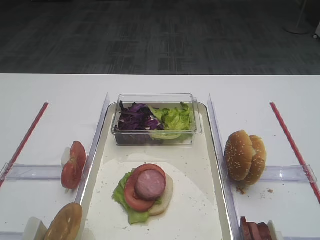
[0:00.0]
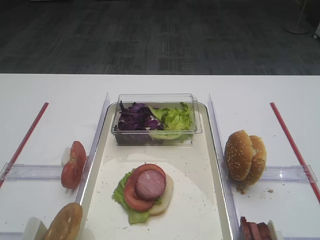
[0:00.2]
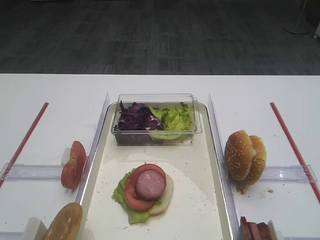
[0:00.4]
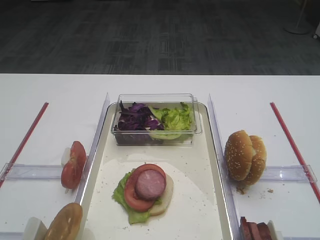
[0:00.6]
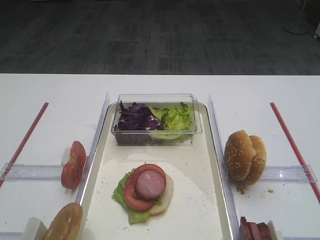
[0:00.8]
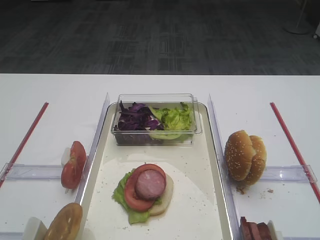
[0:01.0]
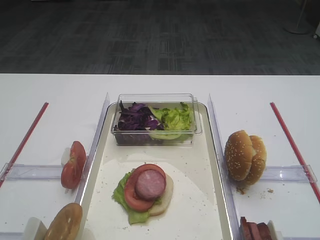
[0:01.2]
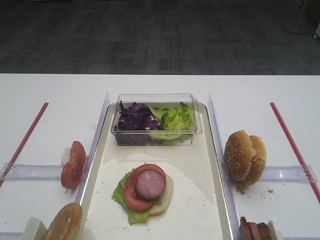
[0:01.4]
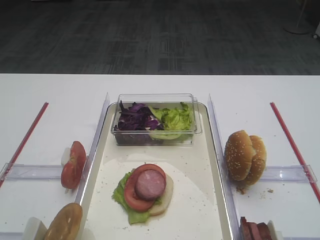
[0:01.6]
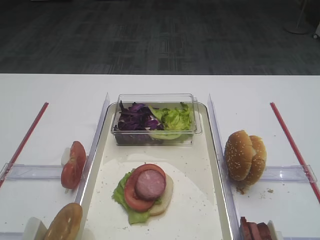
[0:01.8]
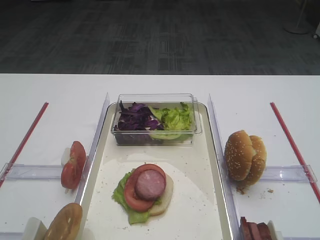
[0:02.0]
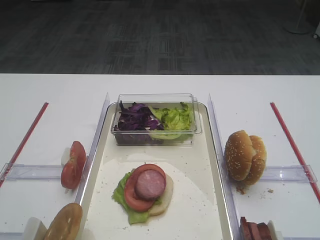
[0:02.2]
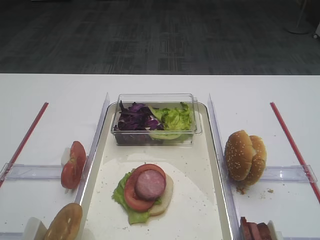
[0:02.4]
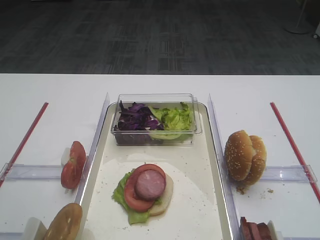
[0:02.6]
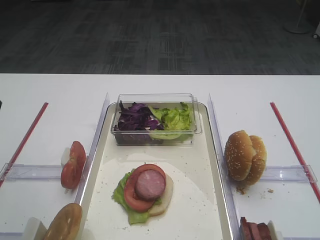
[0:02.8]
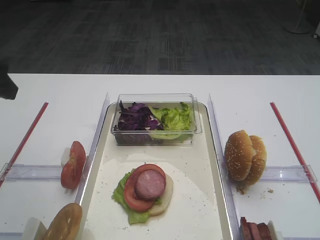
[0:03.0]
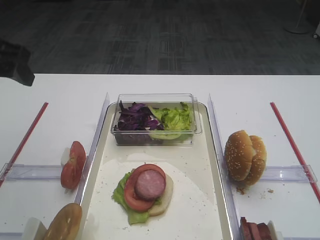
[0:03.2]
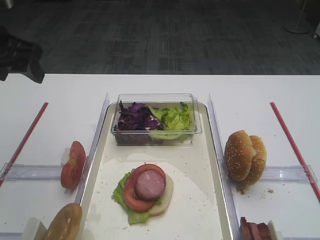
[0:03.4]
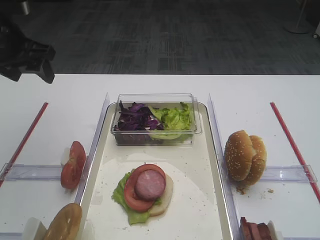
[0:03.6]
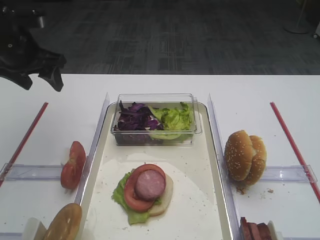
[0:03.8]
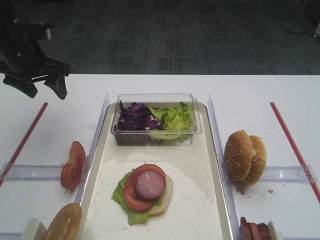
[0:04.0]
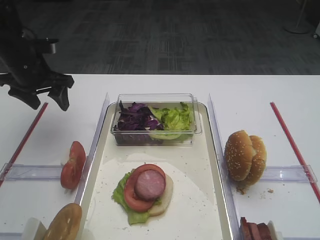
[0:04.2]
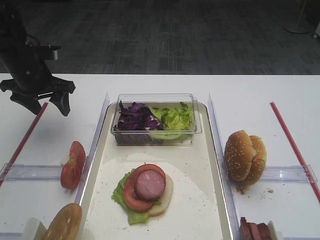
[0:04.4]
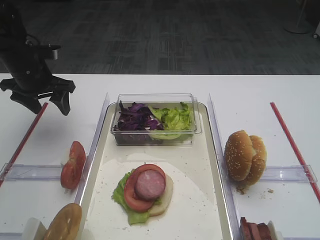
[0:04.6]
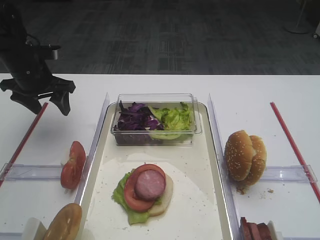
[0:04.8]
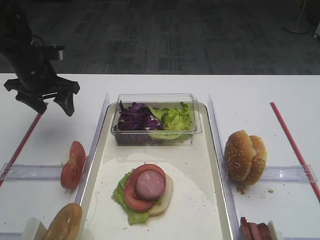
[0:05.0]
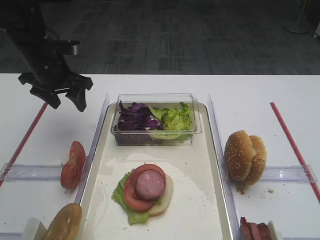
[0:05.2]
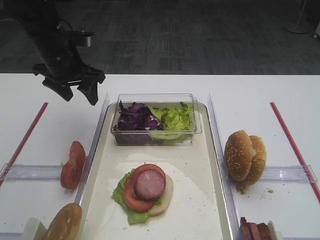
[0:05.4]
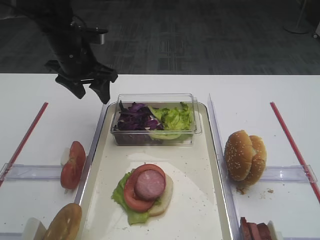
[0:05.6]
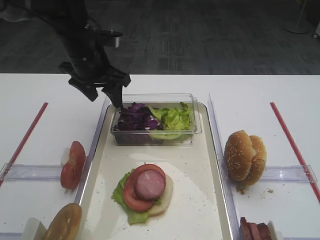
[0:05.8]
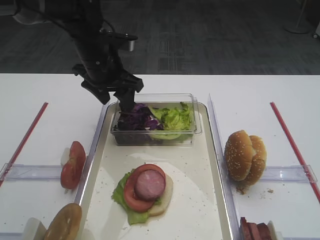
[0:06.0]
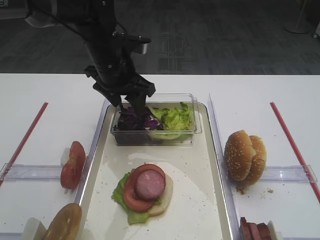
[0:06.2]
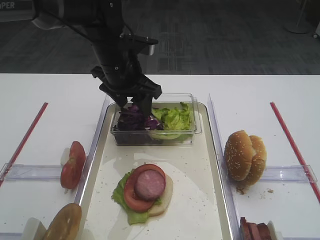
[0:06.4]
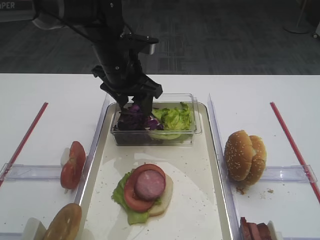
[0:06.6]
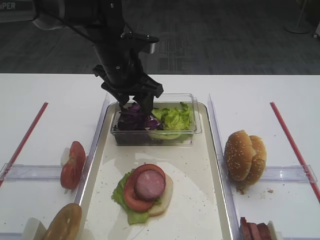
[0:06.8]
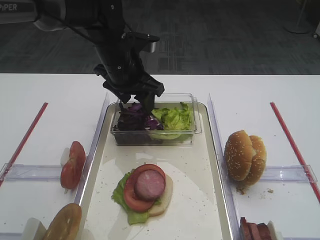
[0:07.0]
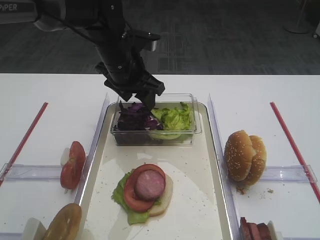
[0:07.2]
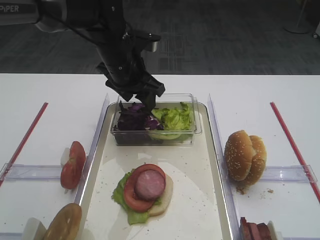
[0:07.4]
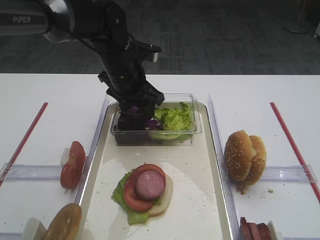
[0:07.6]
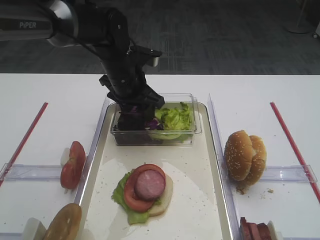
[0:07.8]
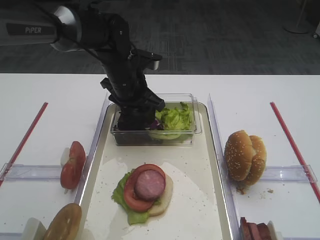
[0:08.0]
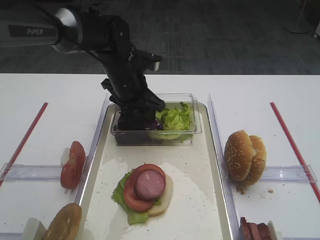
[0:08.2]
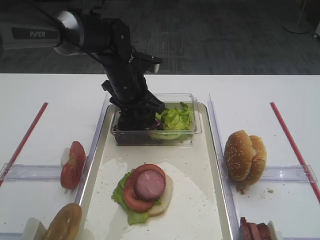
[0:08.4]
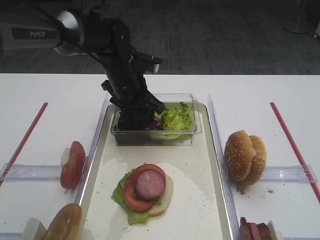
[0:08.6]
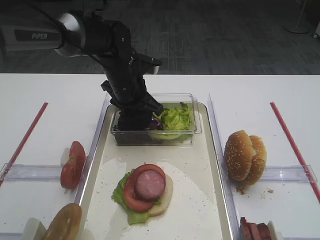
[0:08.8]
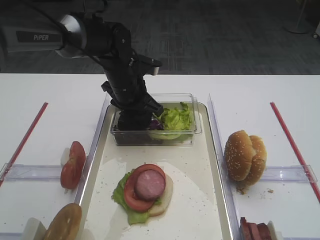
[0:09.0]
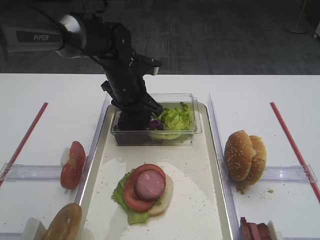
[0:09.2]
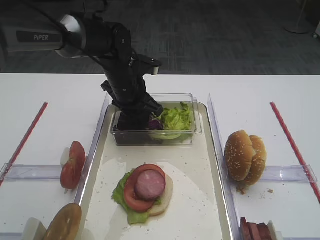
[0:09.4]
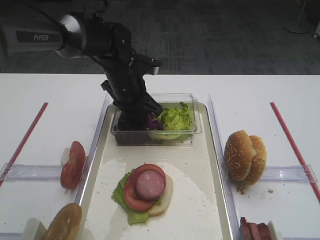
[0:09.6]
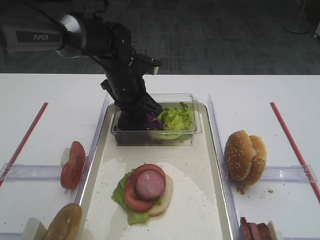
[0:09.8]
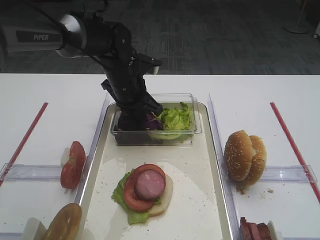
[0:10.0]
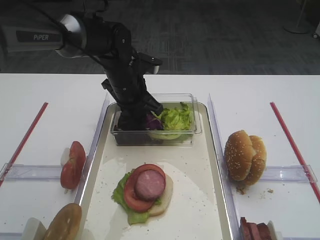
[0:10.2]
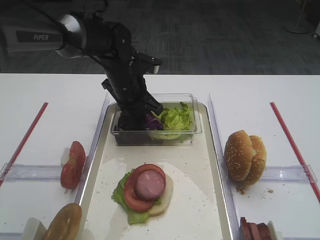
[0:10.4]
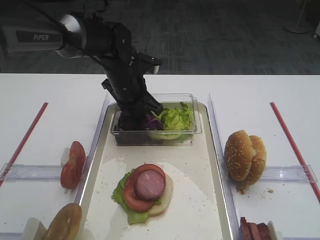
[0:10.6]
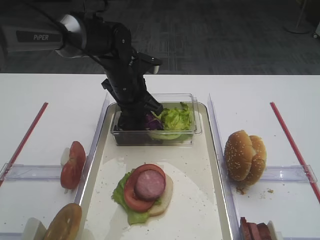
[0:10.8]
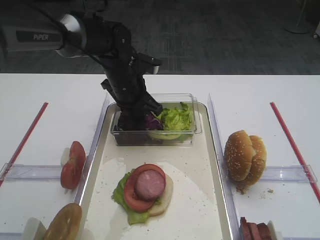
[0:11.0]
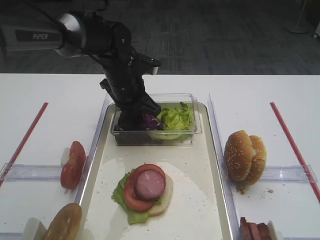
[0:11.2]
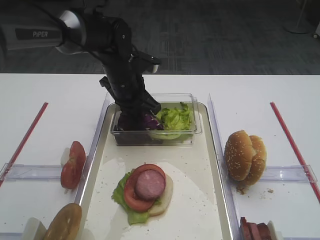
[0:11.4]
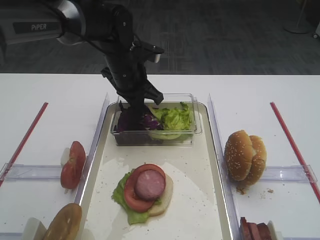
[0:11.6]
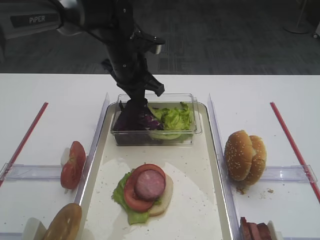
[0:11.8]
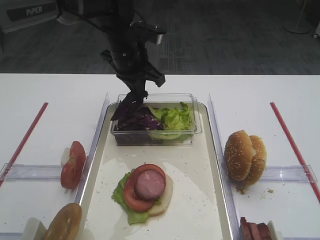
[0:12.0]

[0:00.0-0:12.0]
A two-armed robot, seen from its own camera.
0:01.6 to 0:03.0: The left gripper moves forward, approximately 25 cm.
0:03.0 to 0:04.4: The left gripper goes approximately 25 cm forward and downward.
0:04.4 to 0:06.0: The left gripper goes about 15 cm to the right.
0:06.0 to 0:07.6: The grippers stay close to where they were, moving slightly.
0:07.6 to 0:09.0: The grippers move only a little.
0:10.4 to 0:12.0: The left gripper travels upward by about 5 cm.

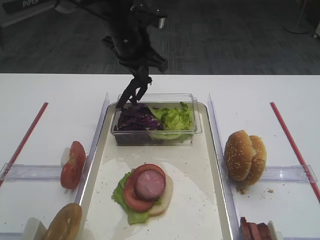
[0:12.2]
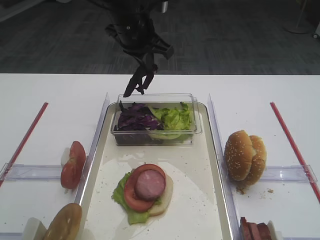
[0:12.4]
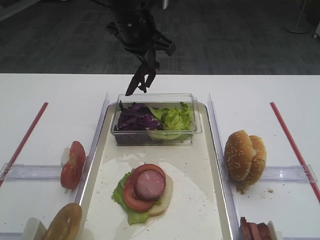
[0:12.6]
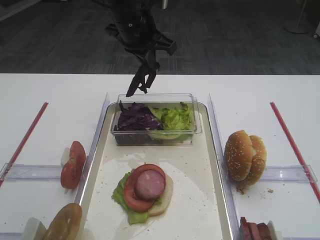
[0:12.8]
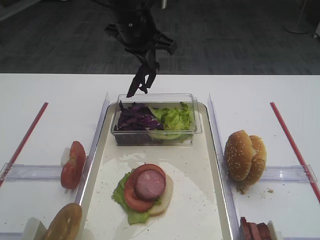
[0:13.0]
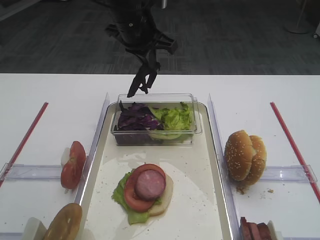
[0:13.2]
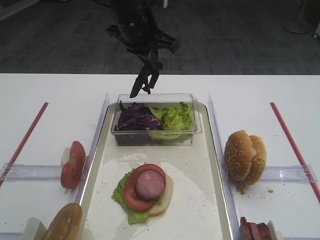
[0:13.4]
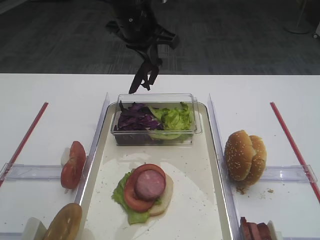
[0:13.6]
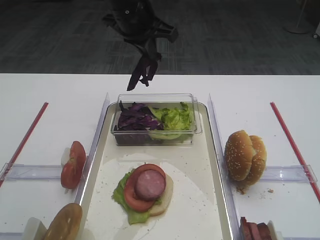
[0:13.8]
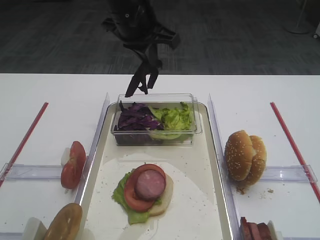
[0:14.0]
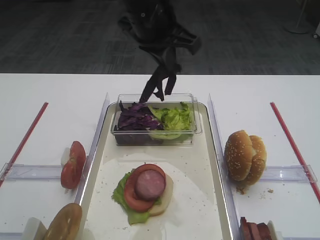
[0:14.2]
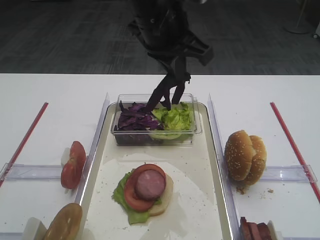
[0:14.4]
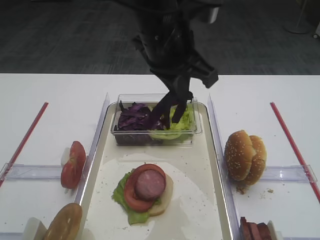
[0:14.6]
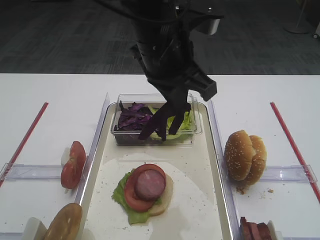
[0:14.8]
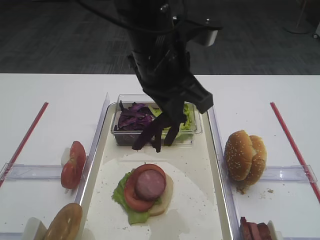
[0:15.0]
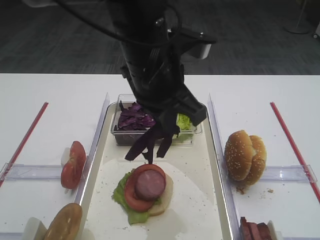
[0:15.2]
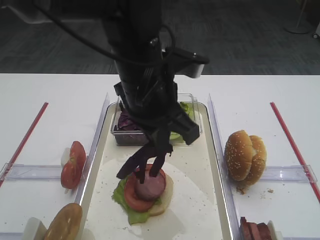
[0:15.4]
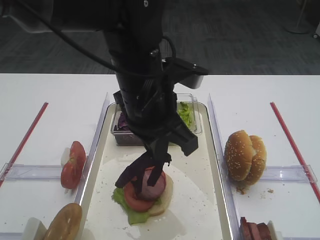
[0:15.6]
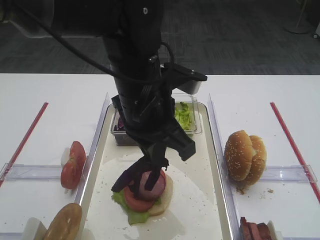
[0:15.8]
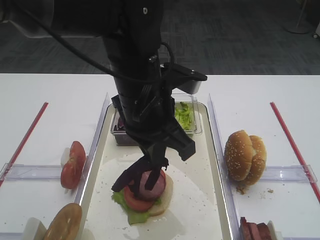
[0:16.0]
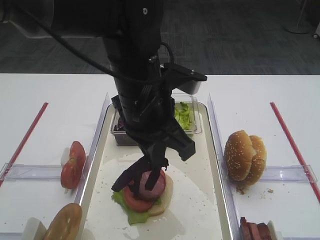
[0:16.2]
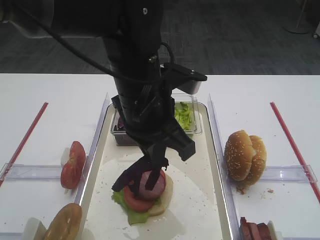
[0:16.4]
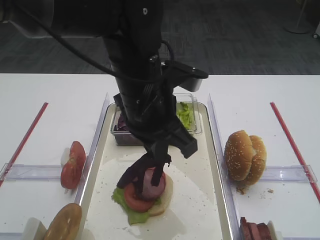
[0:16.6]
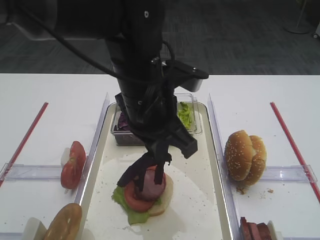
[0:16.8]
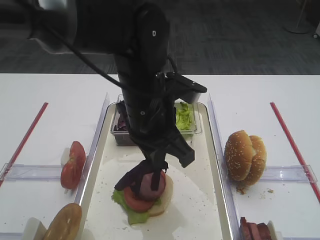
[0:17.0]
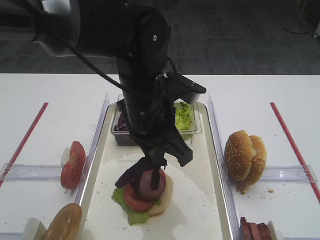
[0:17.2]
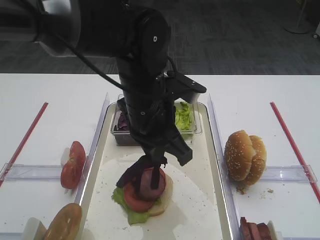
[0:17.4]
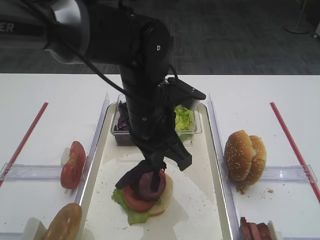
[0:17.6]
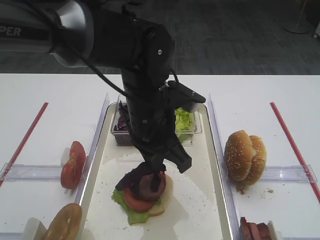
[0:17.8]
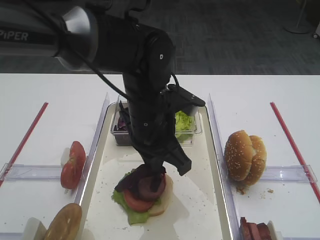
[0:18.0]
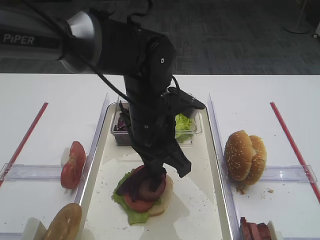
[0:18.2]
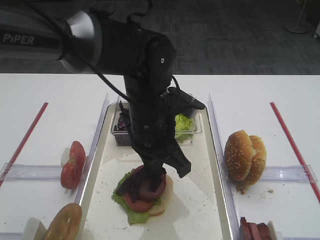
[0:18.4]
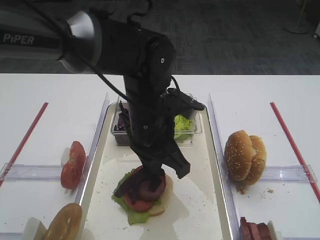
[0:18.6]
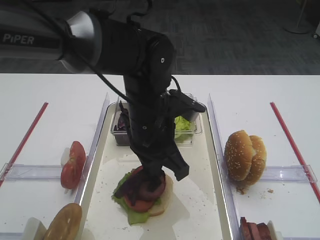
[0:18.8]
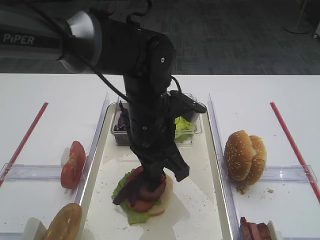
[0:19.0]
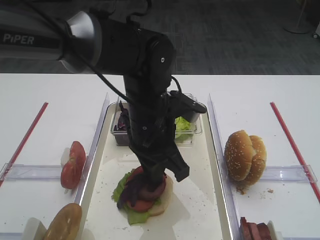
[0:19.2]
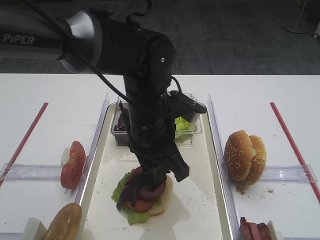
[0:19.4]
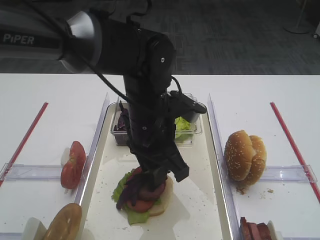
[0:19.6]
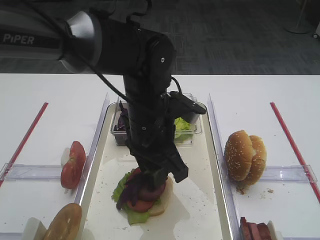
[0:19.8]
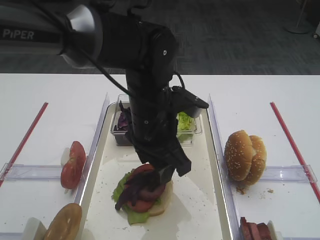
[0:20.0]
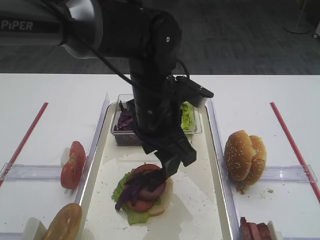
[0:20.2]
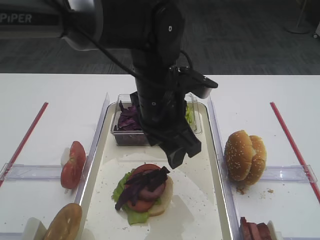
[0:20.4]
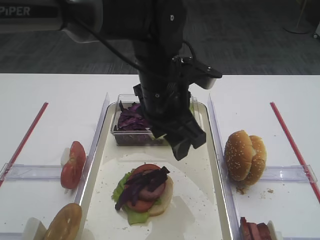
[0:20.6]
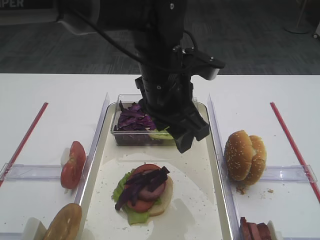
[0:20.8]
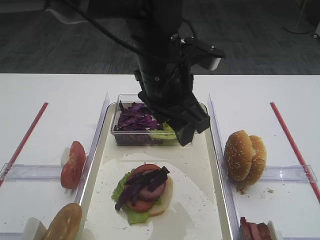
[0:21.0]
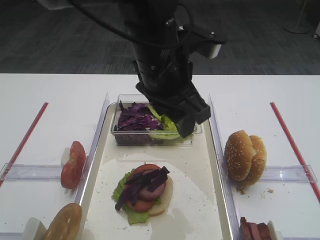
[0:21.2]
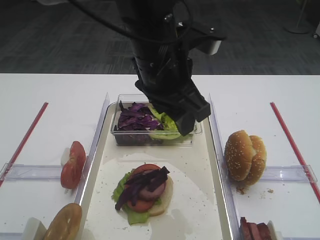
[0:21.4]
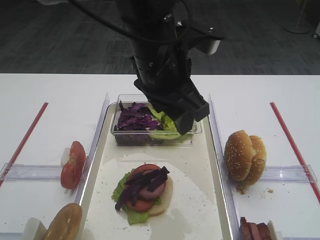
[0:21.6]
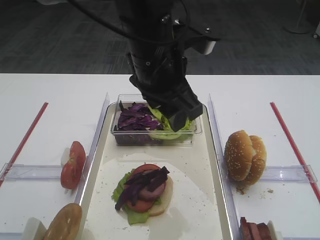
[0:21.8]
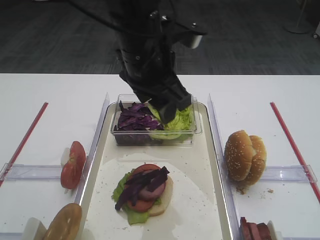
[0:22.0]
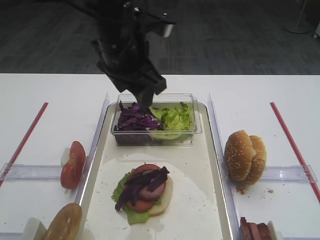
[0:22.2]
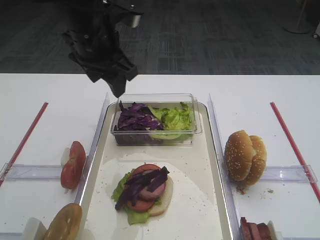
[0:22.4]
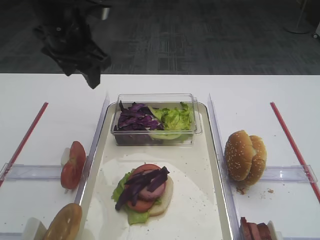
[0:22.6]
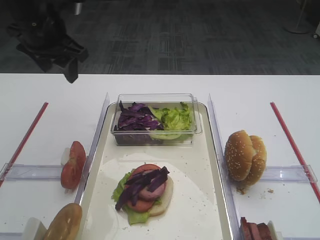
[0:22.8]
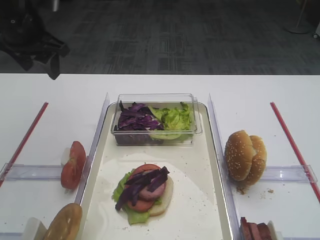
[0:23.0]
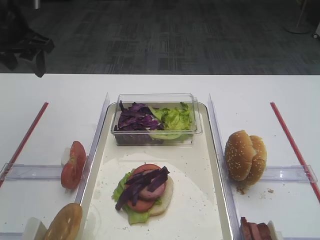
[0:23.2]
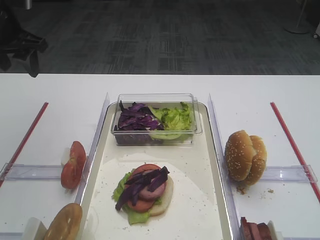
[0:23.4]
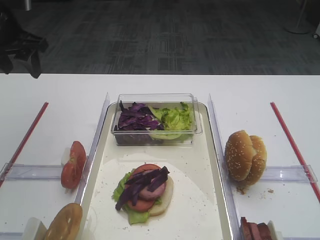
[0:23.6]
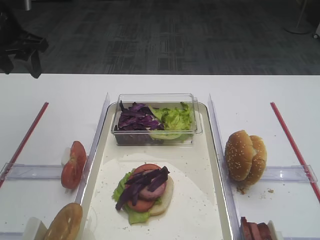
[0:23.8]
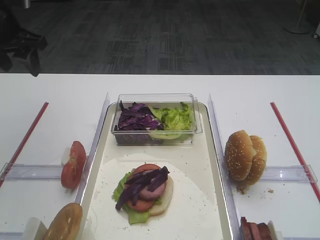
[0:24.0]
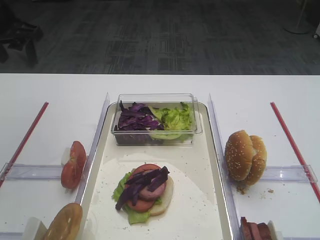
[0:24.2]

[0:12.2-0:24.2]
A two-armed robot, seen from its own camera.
Step, 0:12.4 to 0:20.4: Place the purple cabbage on the cutlet with the left gripper.
0:12.2 to 0:13.8: The left gripper shifts about 5 cm upward.
0:13.8 to 0:15.2: The left gripper shifts approximately 15 cm backward.
0:15.2 to 0:16.6: The grippers make only small movements.
0:16.6 to 0:18.2: The left gripper is displaced downward by roughly 5 cm.
0:18.2 to 0:19.8: The left gripper opens its fingers.
0:19.8 to 0:21.2: The left gripper travels upward by some 10 cm.
0:21.2 to 0:22.6: The left gripper shifts roughly 15 cm to the left and forward.
0:22.6 to 0:24.2: The left gripper moves to the left, approximately 15 cm.
